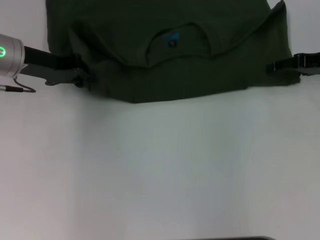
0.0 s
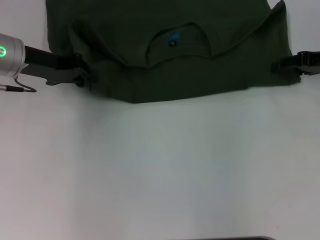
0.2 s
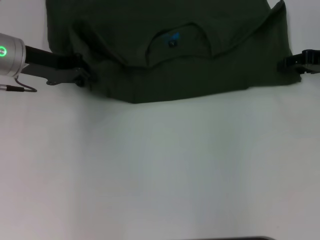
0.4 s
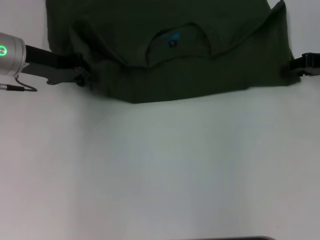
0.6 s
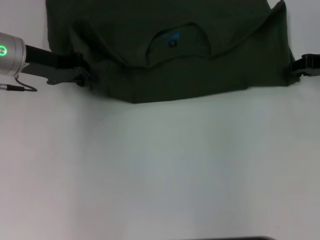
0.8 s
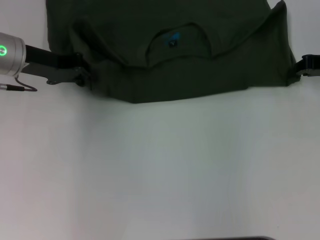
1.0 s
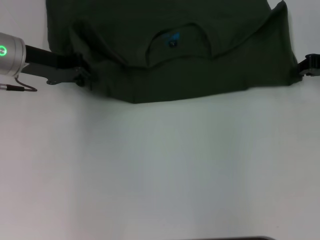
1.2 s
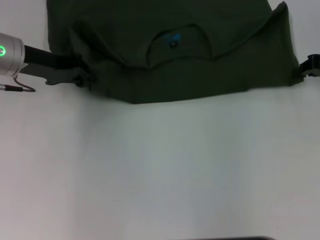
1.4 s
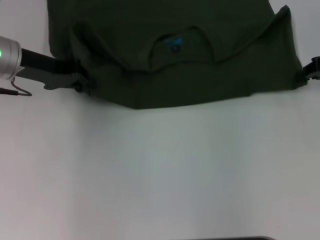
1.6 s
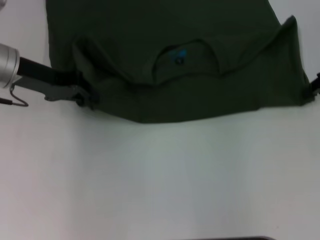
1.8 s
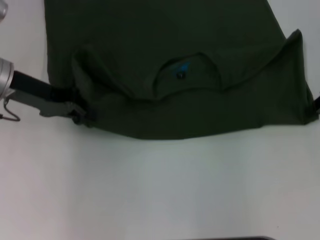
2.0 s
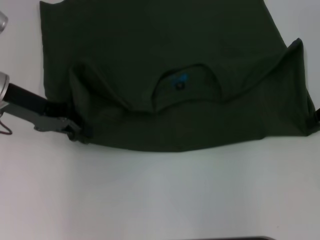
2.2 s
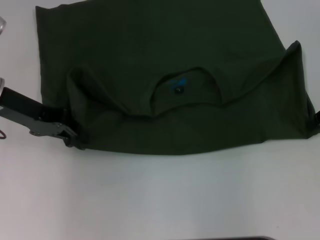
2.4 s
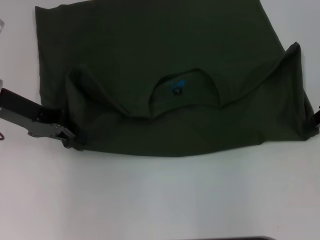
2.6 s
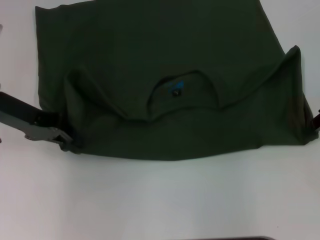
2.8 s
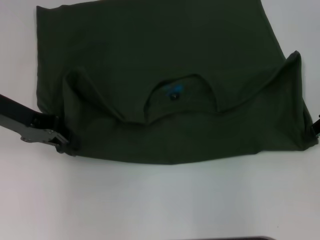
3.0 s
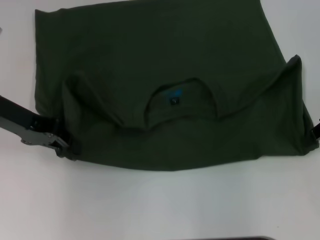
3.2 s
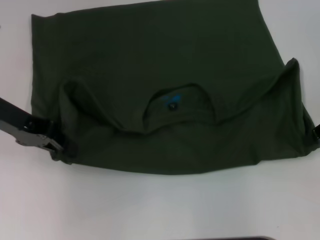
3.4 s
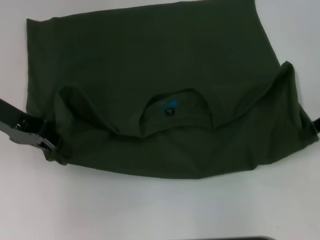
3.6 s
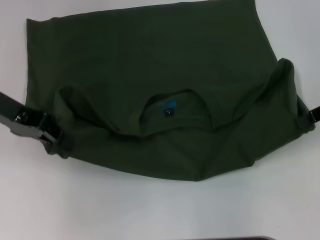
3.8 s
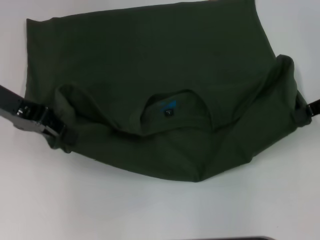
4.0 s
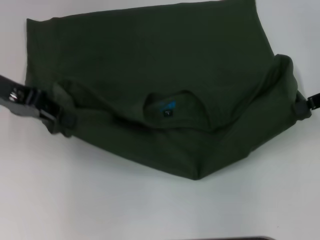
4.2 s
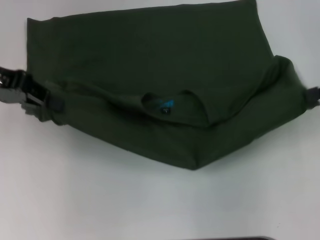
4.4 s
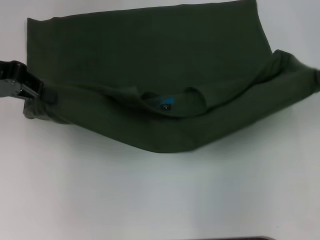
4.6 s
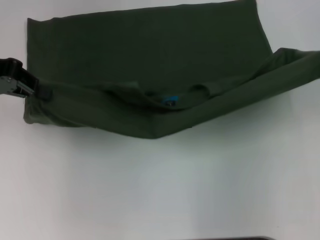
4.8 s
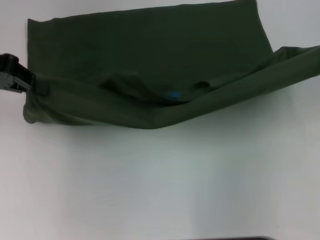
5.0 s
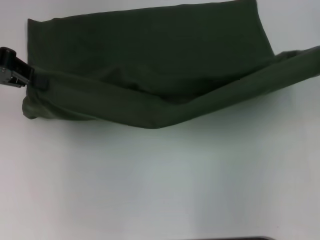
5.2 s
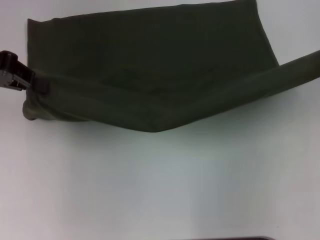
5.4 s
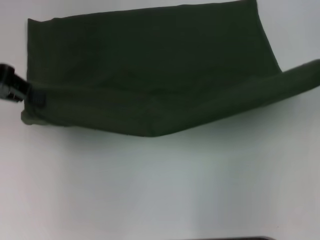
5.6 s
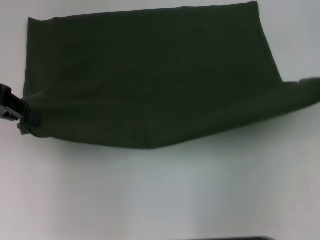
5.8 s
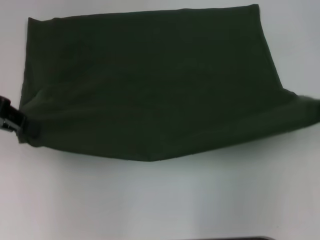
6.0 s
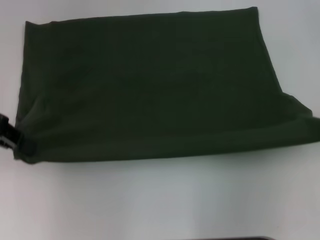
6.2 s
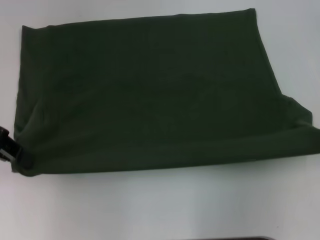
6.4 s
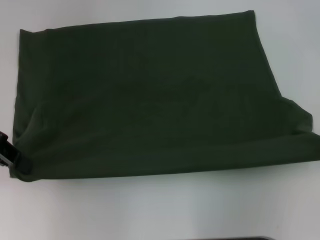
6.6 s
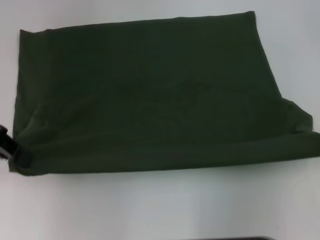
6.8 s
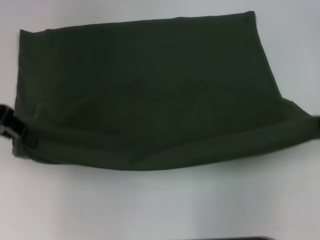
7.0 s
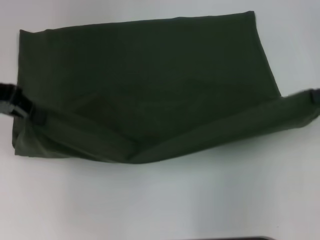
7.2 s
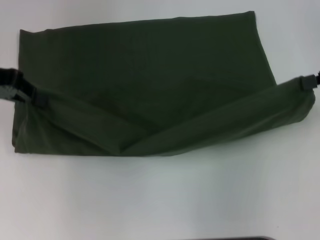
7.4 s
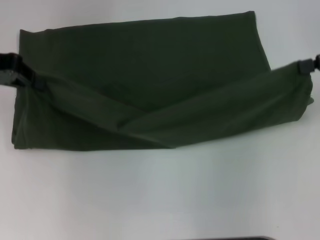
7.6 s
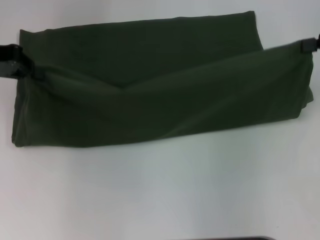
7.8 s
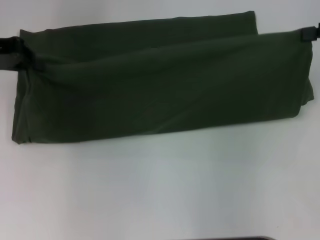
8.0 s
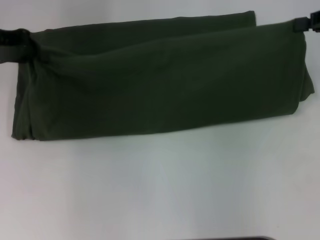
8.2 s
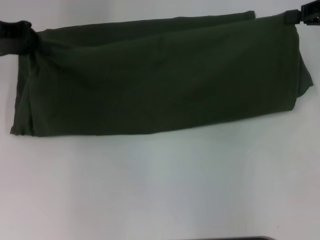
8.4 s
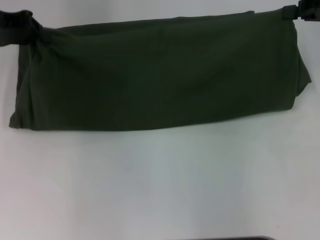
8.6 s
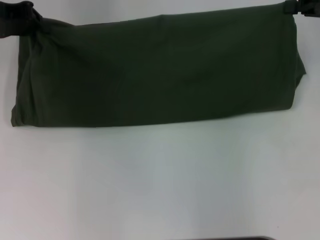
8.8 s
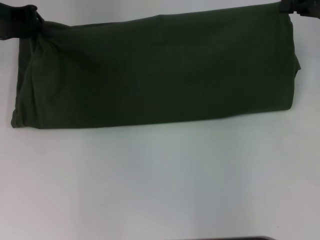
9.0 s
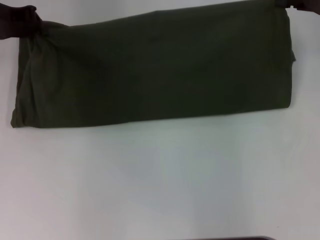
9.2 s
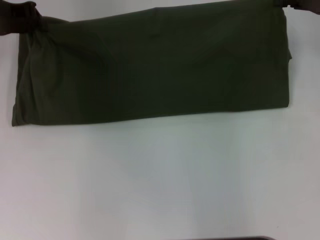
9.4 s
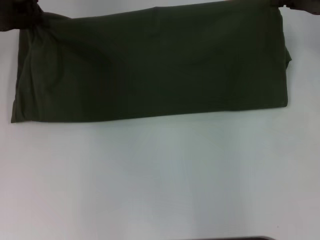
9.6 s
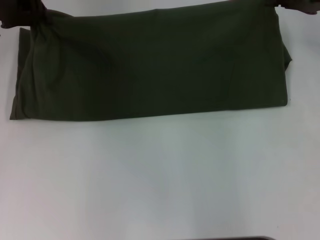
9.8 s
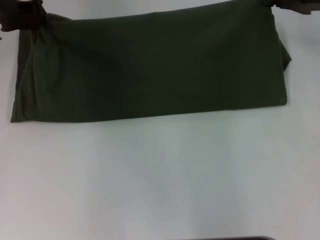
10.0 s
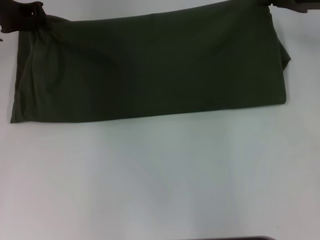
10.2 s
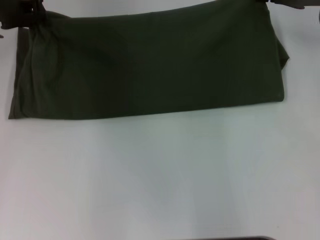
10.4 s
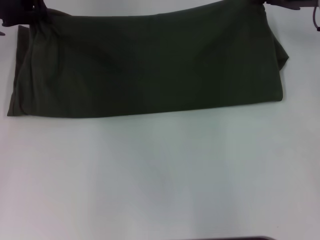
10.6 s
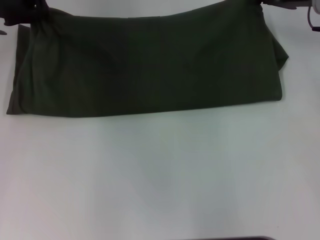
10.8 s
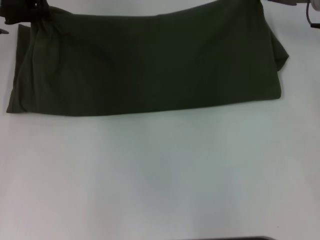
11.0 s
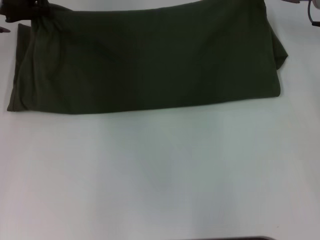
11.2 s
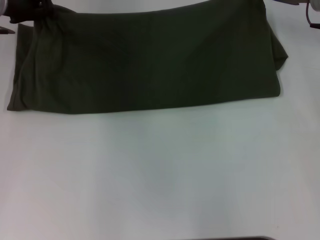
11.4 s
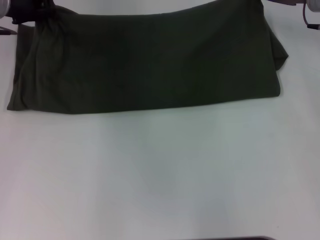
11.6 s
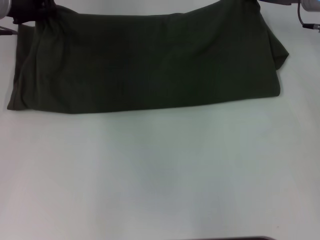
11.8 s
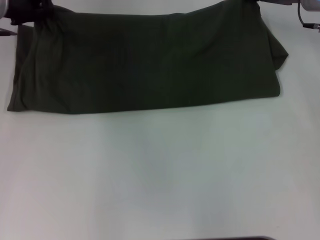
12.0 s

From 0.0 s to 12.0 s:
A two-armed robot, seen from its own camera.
Step, from 0.0 s to 3.0 s: Pull the clothes with your left hand.
Step, from 0.0 s to 3.0 s: Pull the clothes with your right hand.
From 0.0 s to 1.6 s: The right gripper closes.
From 1.6 s to 3.0 s: The left gripper ends up approximately 5 cm from where it was.
From 3.0 s to 4.4 s: Both grippers travel together upward, about 5 cm.
From 4.4 s to 6.0 s: The grippers make only small movements.
From 7.6 s to 9.0 s: The right gripper shifts roughly 5 cm forward. The left gripper shifts by about 5 cm.
From 9.0 s to 10.4 s: The right gripper heads to the left, covering approximately 5 cm.
From 10.4 s to 12.0 s: The grippers make only small movements.

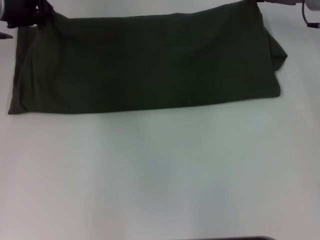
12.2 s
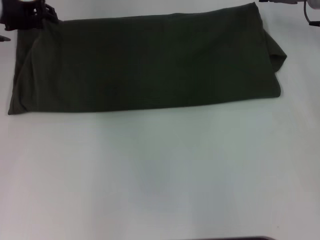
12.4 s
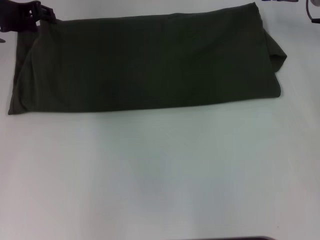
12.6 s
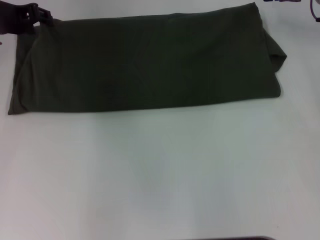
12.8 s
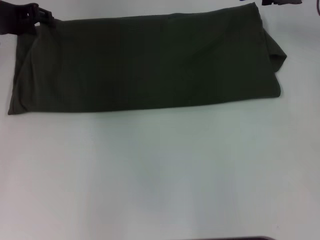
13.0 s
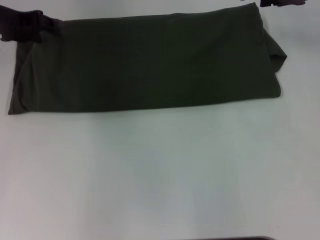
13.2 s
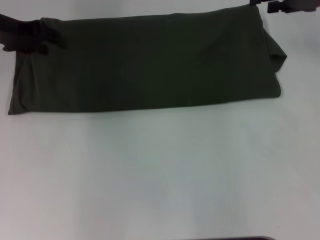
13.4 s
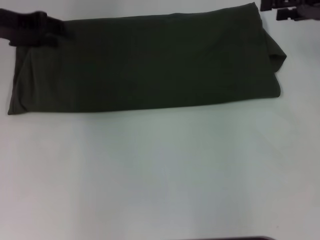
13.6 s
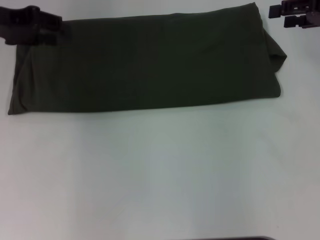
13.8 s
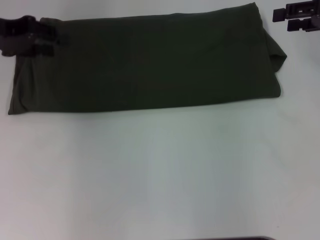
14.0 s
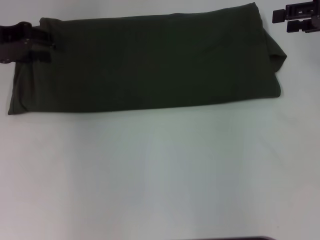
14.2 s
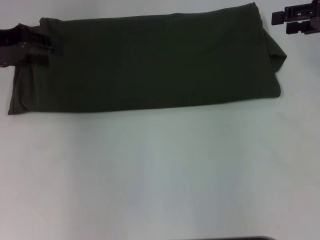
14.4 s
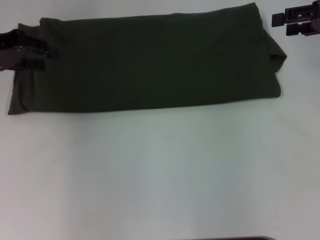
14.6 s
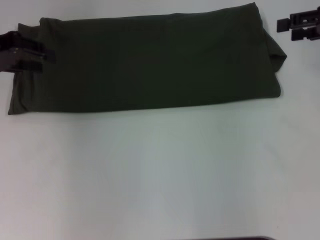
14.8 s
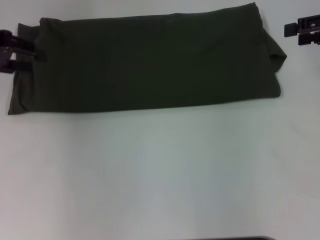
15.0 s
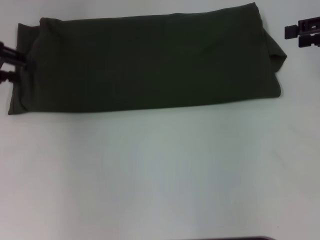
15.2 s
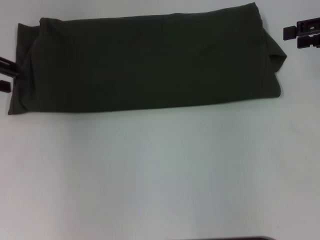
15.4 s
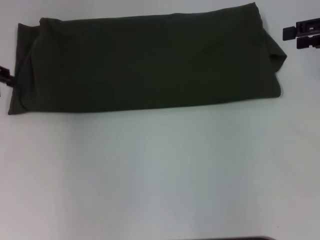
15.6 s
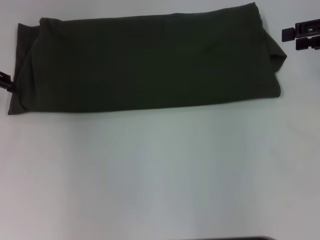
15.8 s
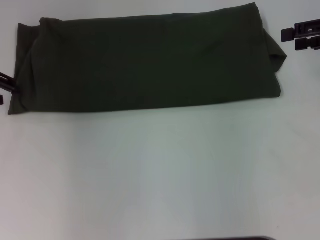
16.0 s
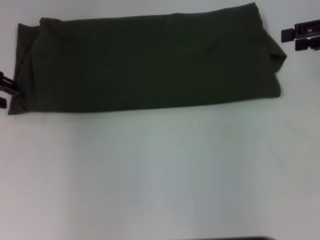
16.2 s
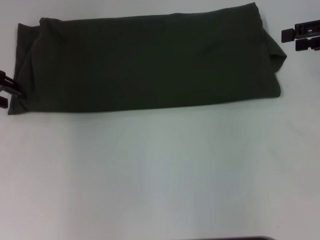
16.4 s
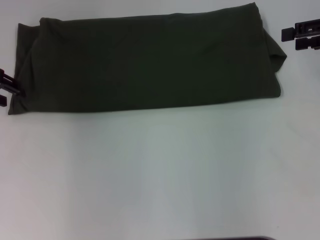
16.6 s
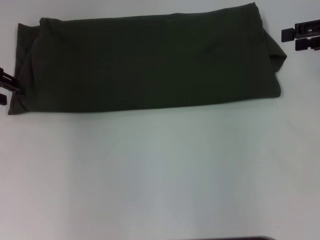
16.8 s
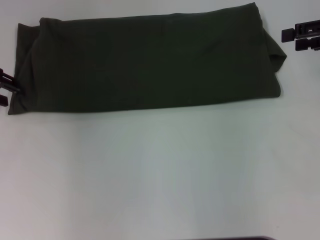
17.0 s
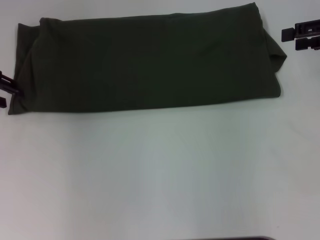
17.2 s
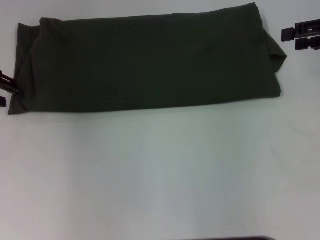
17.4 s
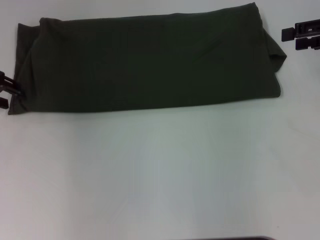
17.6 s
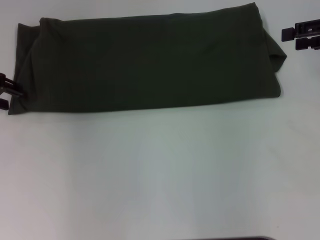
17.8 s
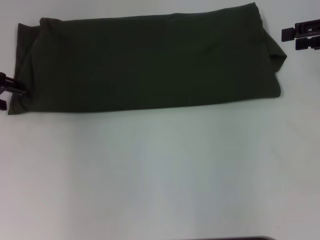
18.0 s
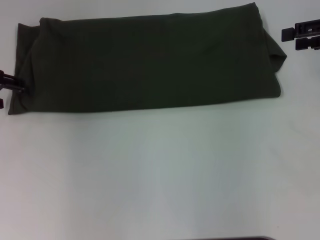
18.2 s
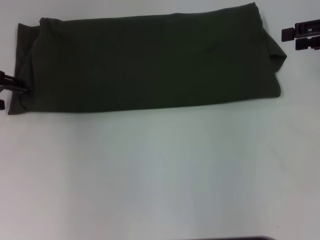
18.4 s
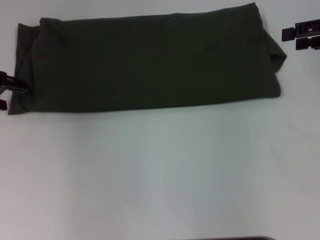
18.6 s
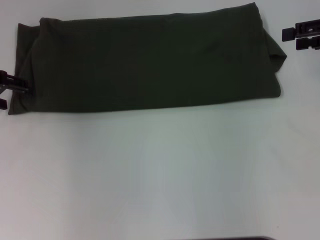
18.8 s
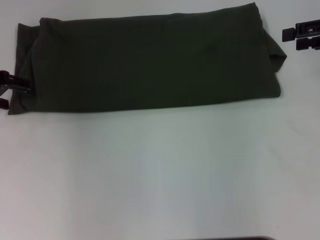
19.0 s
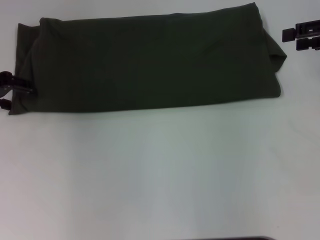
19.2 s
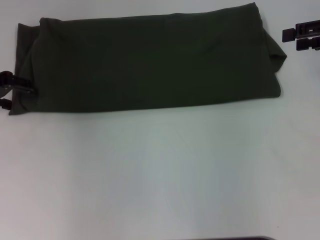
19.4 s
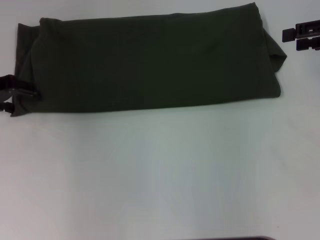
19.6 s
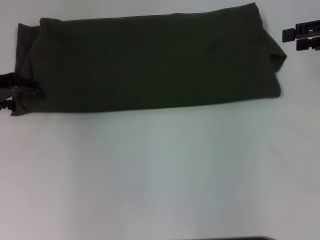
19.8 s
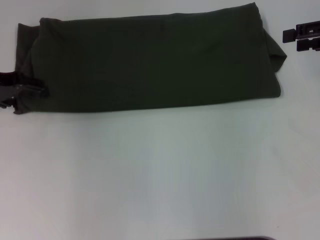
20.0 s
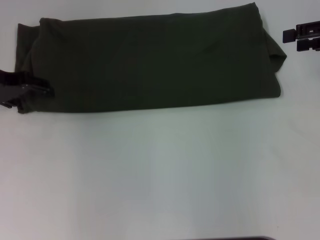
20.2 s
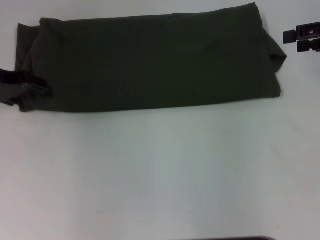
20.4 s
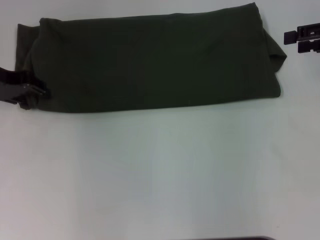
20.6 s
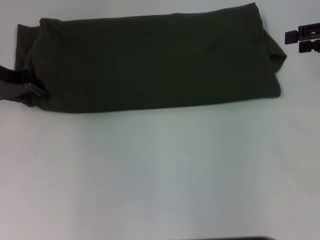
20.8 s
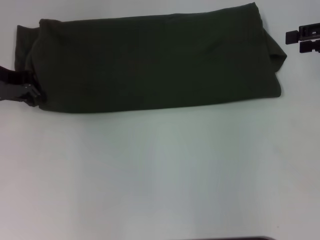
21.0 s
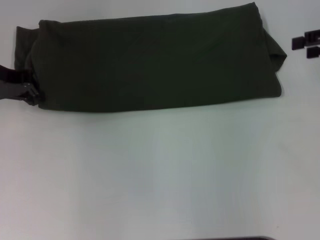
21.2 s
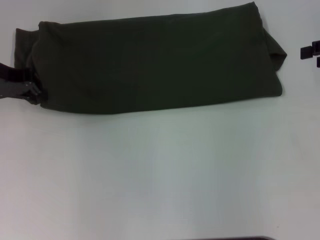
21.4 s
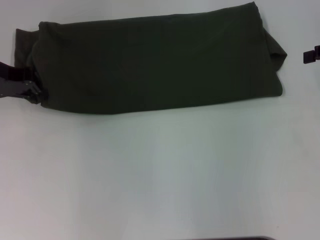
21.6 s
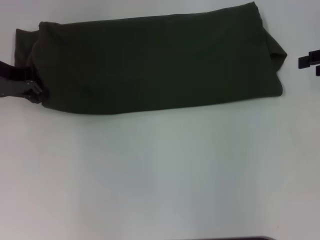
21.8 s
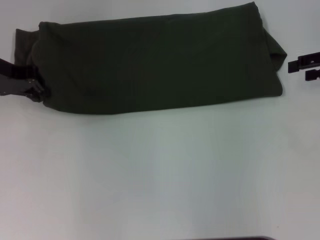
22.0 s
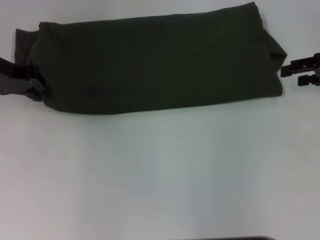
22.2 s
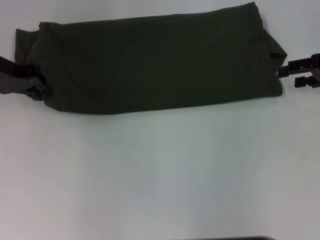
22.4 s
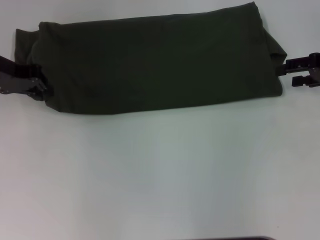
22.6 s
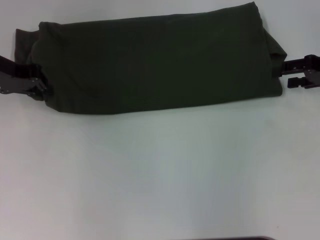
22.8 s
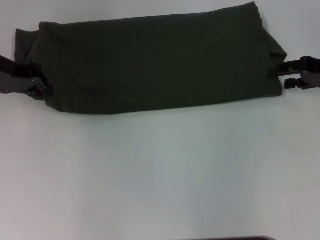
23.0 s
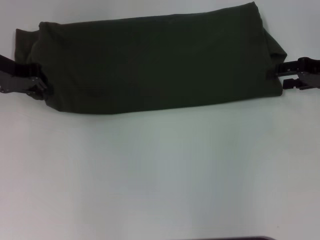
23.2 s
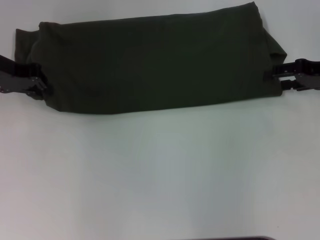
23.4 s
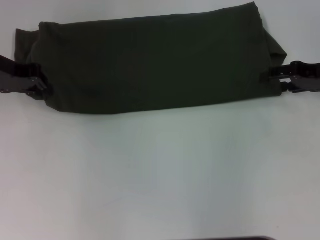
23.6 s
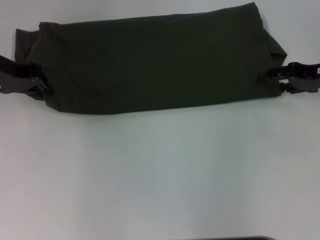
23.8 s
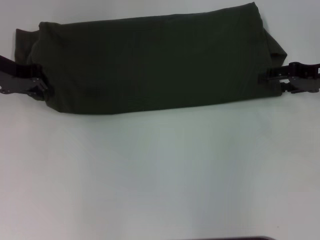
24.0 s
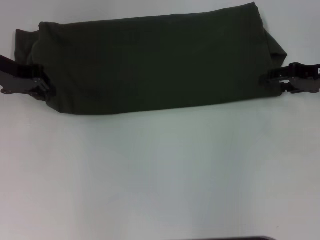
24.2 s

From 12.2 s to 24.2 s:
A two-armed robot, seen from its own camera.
From 12.2 s to 13.8 s: The right gripper shifts about 10 cm to the right and backward, and opens up. The left gripper moves about 5 cm, and opens its fingers.
From 13.8 s to 15.2 s: The left gripper moves some 5 cm.
From 15.2 s to 16.6 s: The grippers move only a little.
From 19.8 s to 21.2 s: The left gripper closes up.
From 21.2 s to 22.6 s: The right gripper moves downward, approximately 5 cm.
From 22.6 s to 24.2 s: There are only small adjustments of the grippers.
